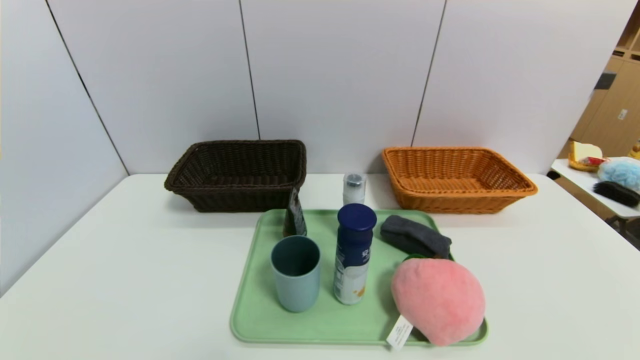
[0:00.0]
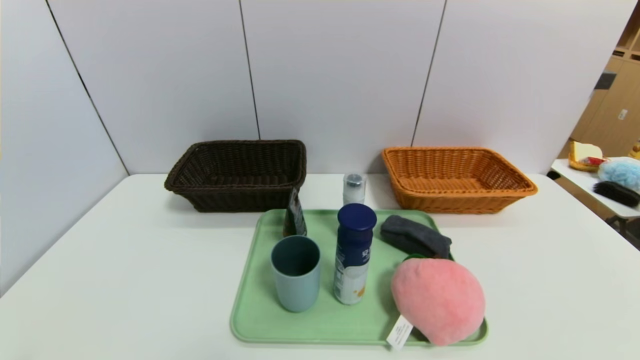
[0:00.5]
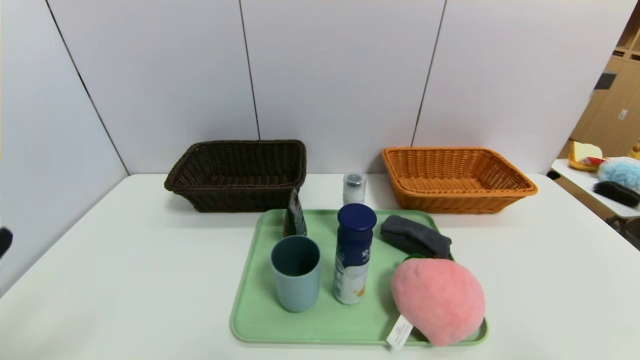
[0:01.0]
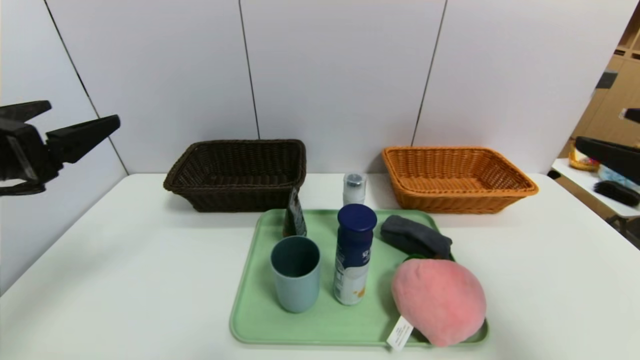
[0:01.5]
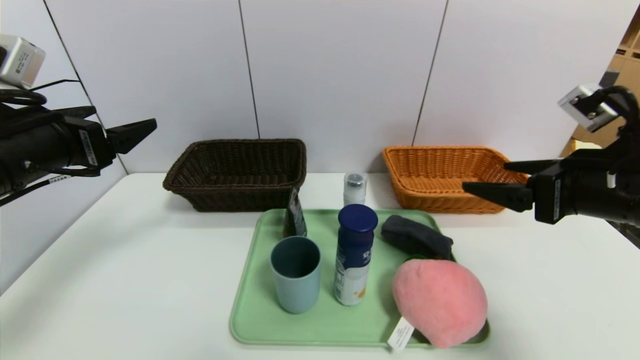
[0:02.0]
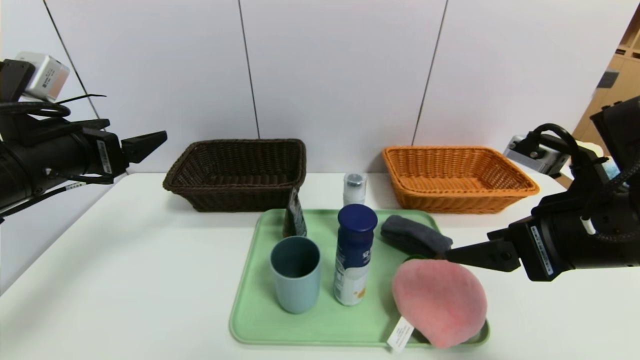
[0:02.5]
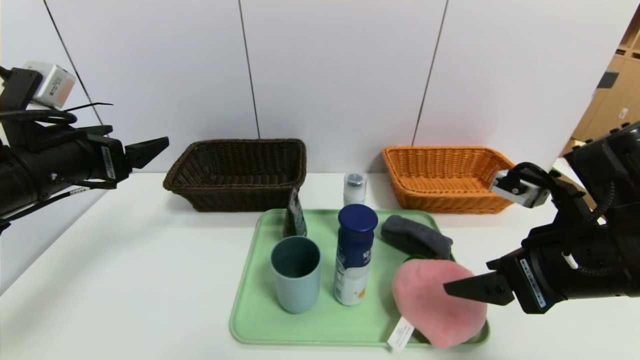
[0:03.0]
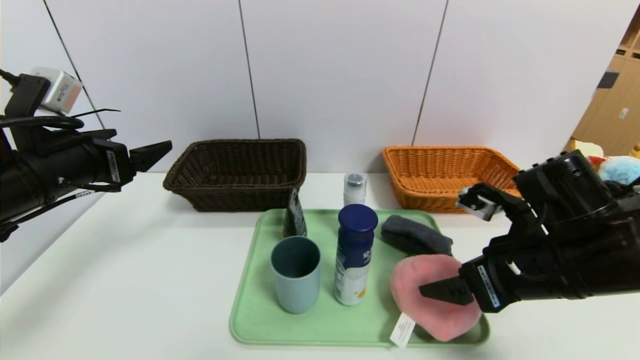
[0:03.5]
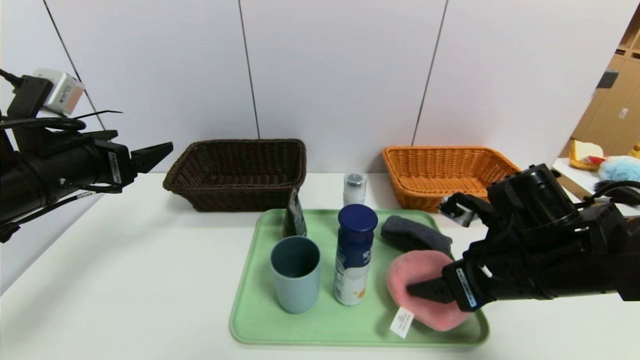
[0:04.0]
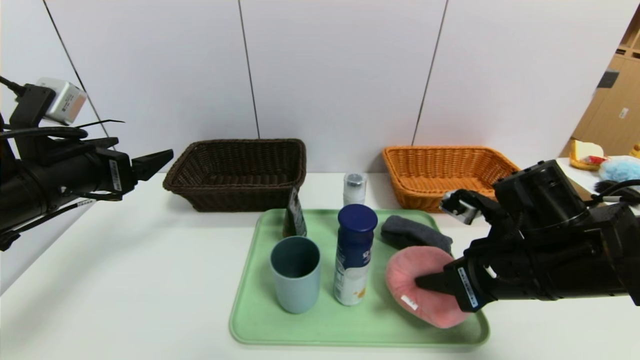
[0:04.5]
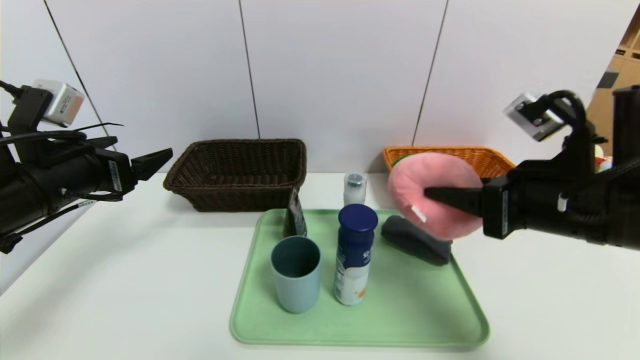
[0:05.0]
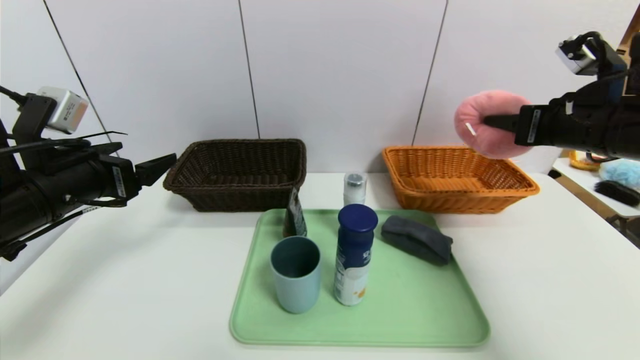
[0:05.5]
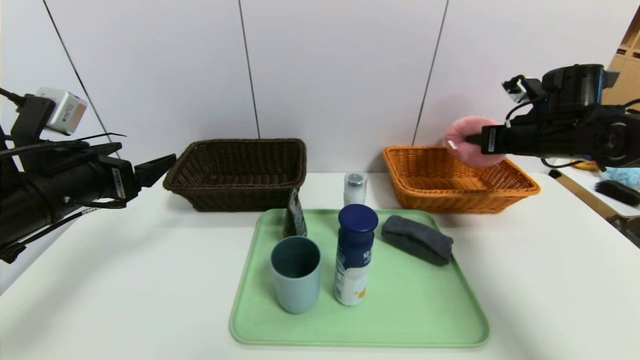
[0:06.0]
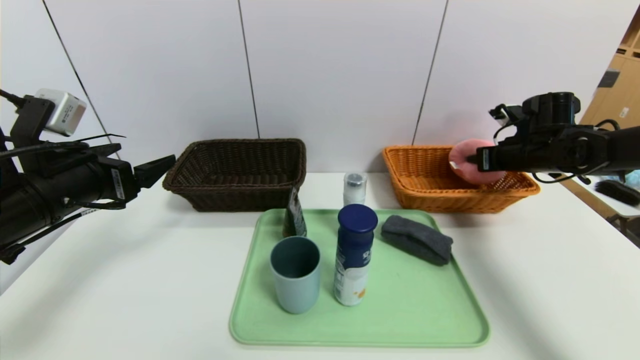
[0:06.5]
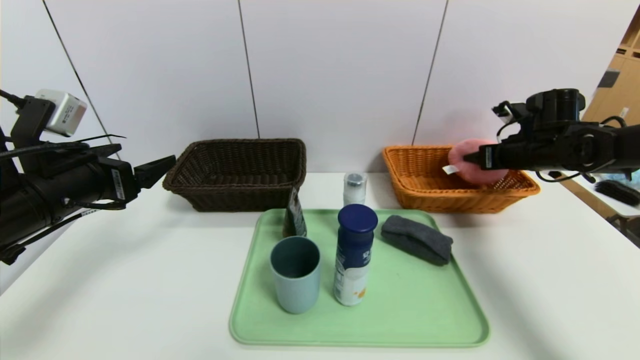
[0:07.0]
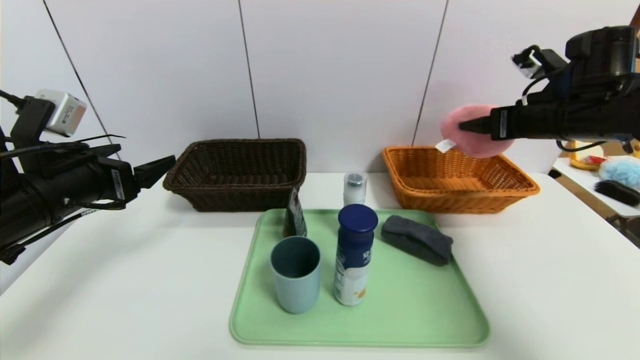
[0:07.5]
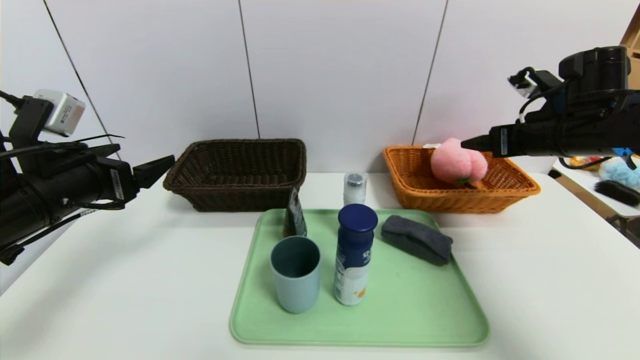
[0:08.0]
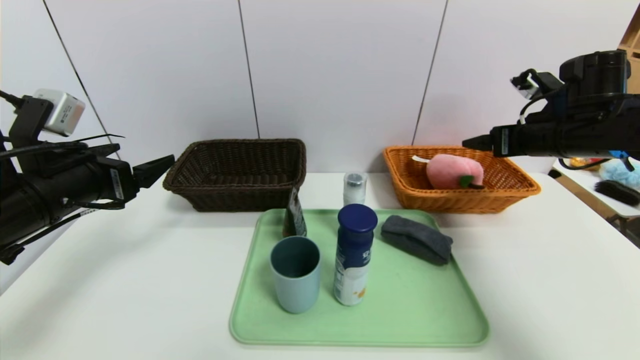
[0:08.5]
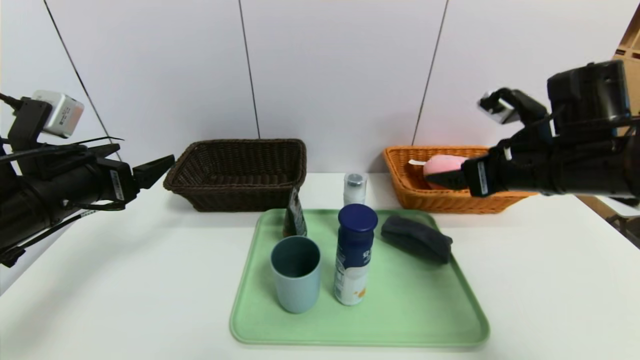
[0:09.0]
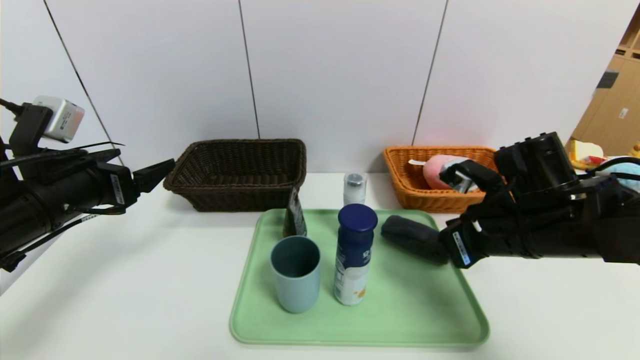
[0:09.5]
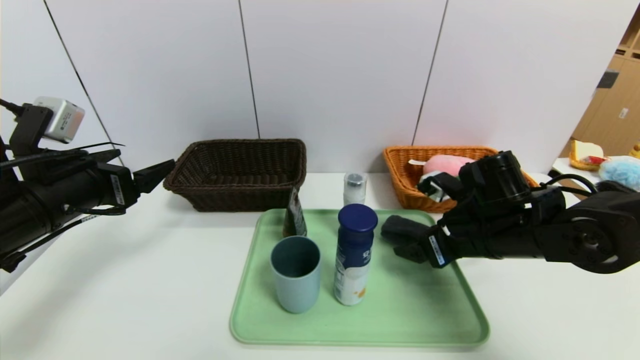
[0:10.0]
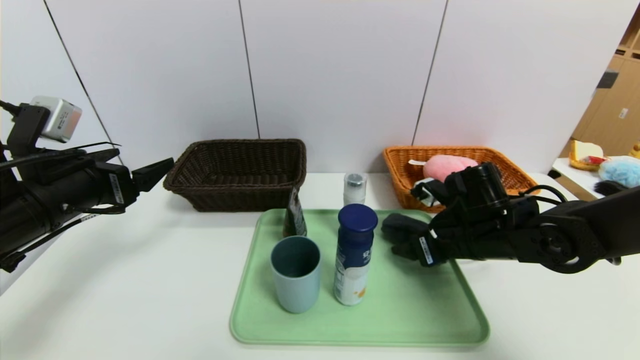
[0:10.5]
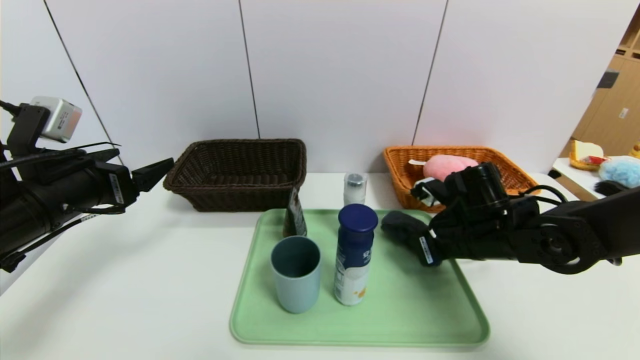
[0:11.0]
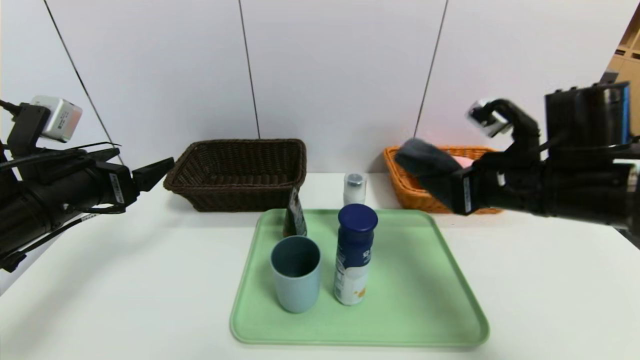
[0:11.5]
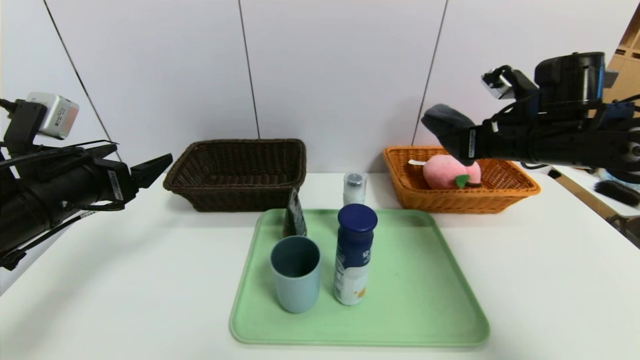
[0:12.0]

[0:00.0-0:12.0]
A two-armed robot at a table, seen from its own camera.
Task of the whole recording: place the food in the right basket with the right gripper, and place the non food items in the left basket with the left gripper.
Step, 0:00.0 to 0:08.5: Grasp the peach and put it in the right basket.
0:00.0 to 0:02.0: The grippers both shift forward and upward by roughly 30 cm.
0:02.0 to 0:04.0: The right gripper moves downward and to the left, some 10 cm.
0:04.0 to 0:06.0: The right gripper shifts some 20 cm forward and to the right, and closes its fingers.
0:06.0 to 0:08.0: The right gripper goes upward and returns, roughly 5 cm each way, and opens its fingers.
0:08.0 to 0:10.0: The right gripper goes roughly 15 cm to the left, downward and backward.
0:10.0 to 0:12.0: The right gripper moves upward, forward and to the right, some 15 cm, and closes.

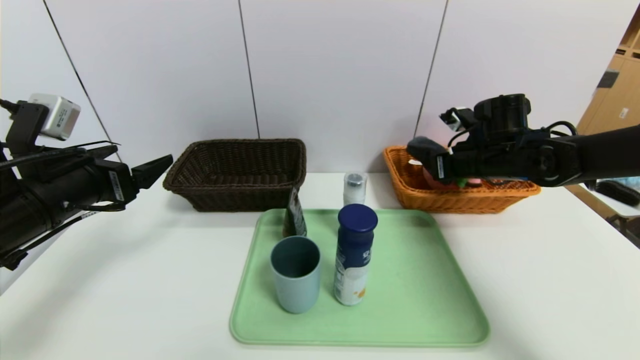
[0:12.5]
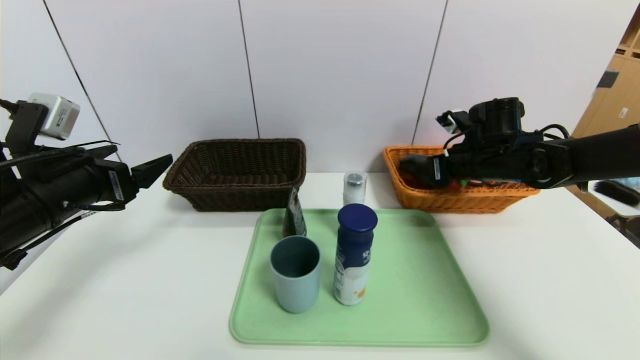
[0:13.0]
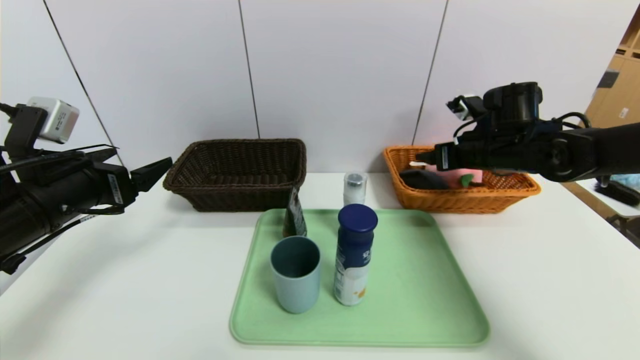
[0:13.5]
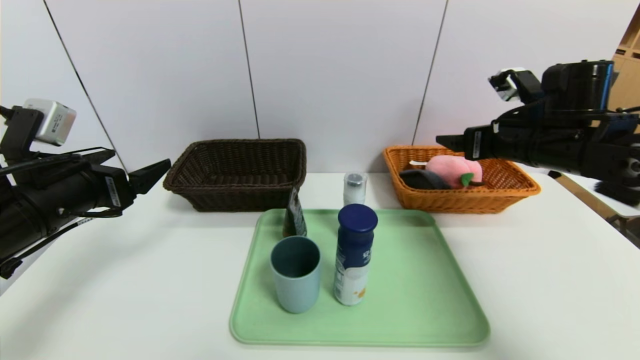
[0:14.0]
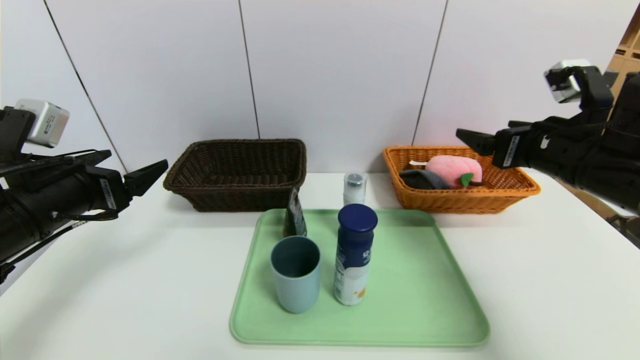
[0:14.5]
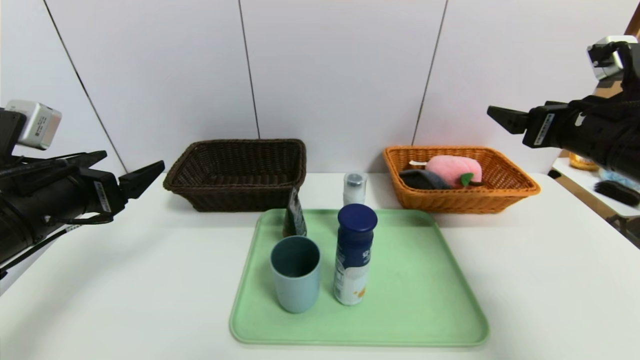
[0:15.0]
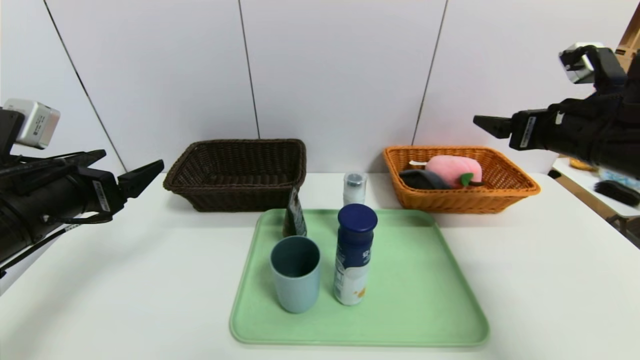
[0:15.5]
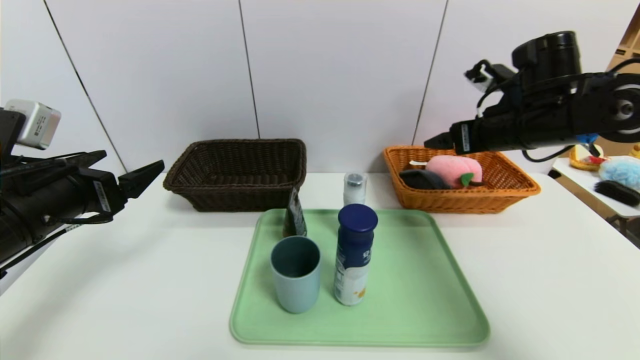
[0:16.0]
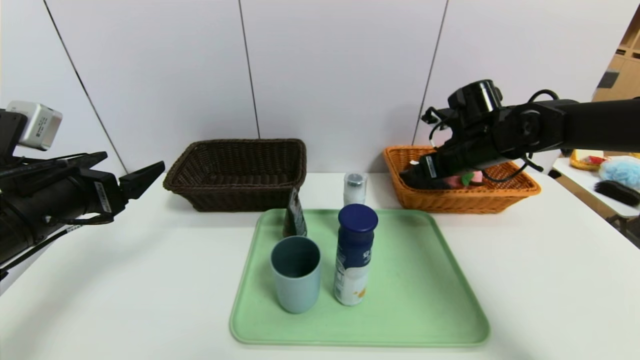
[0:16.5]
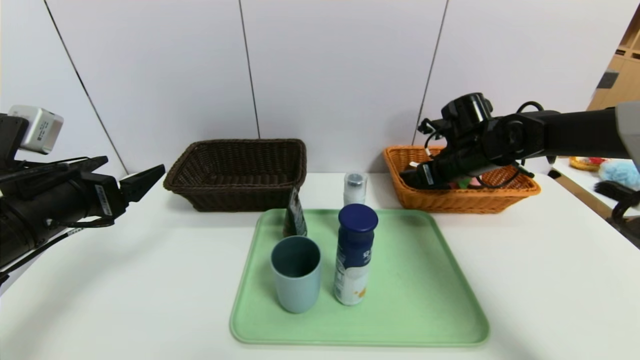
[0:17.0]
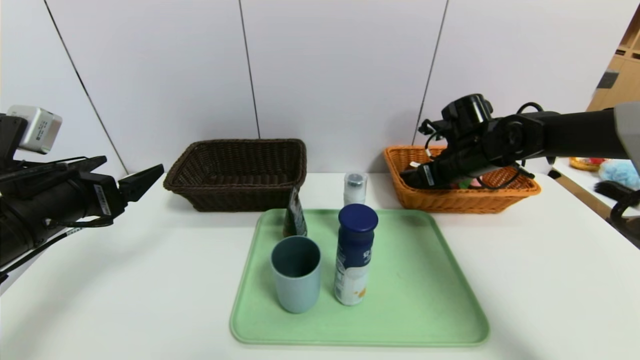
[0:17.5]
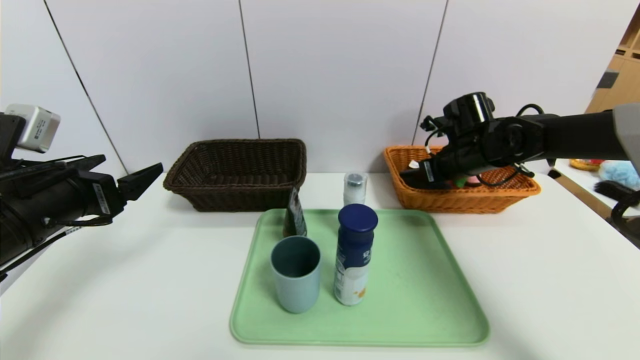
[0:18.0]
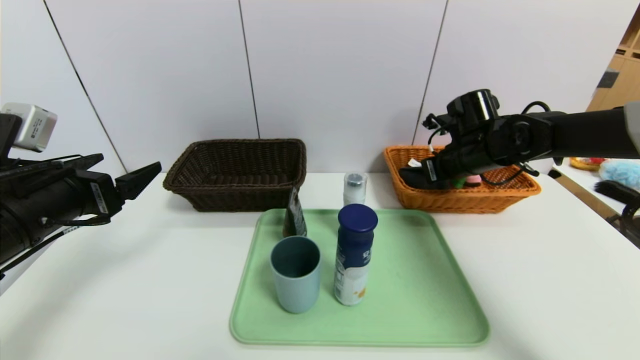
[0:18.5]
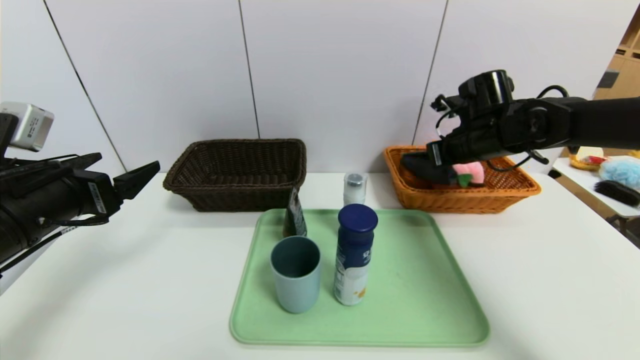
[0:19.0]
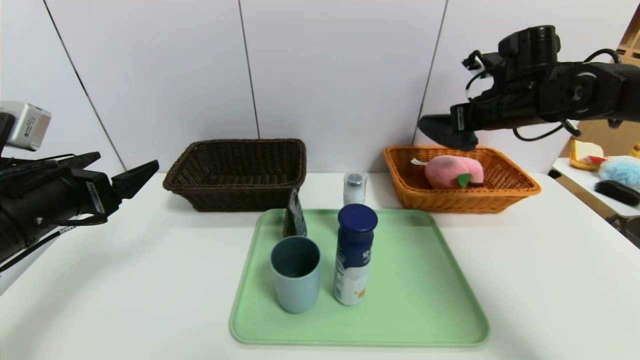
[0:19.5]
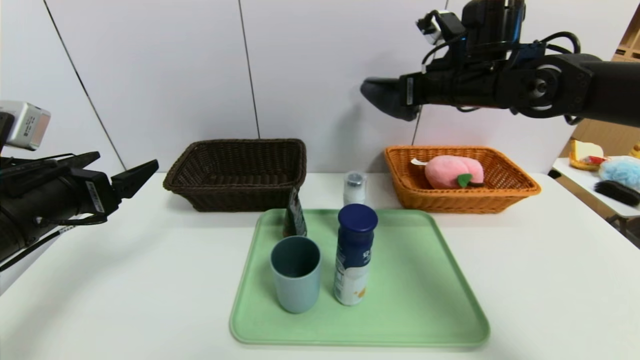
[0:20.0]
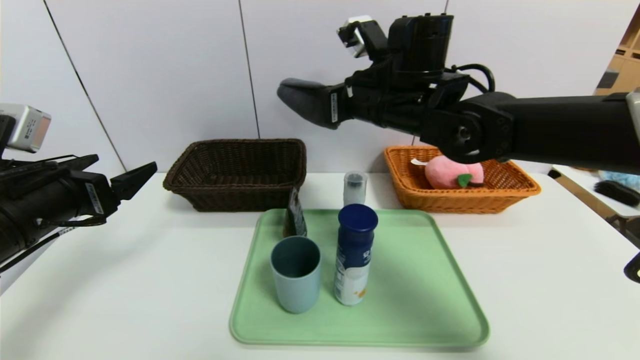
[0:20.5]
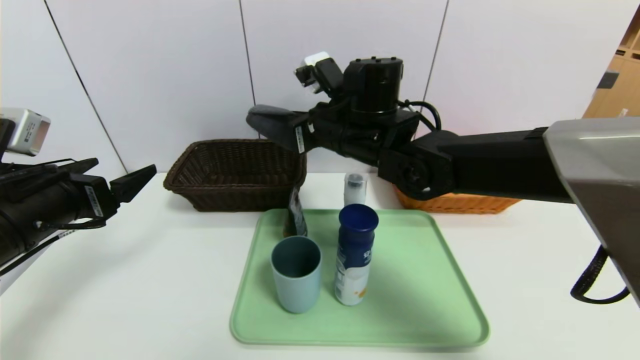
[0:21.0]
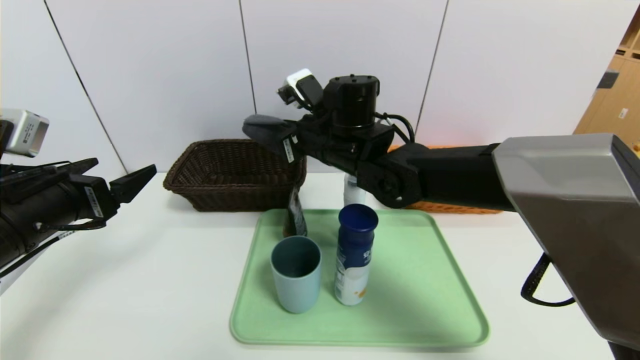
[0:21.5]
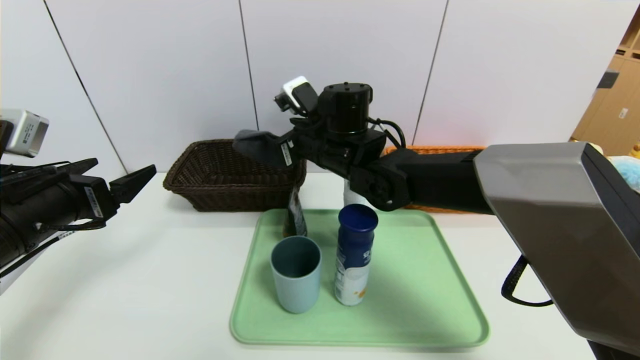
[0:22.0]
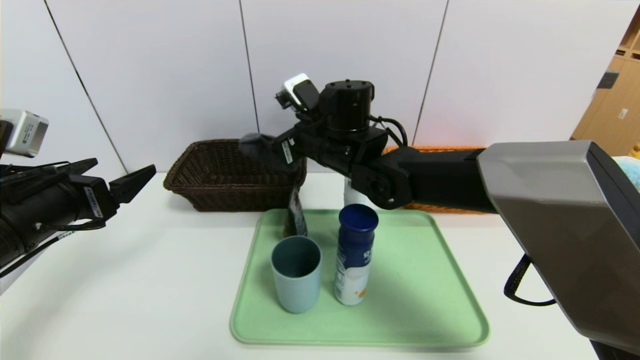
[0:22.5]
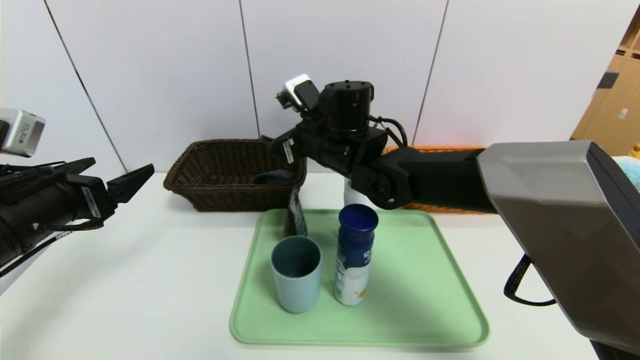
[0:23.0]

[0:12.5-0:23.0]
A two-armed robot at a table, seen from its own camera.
Task of the whole recording: place the food in the right basket with the right gripper, and place the non food items in the left basket with the left gripper.
0:12.5 to 0:14.5: The right gripper heads backward and upward, covering some 15 cm, and opens up.
0:14.5 to 0:16.5: The right gripper moves forward, approximately 15 cm.
0:16.5 to 0:19.0: The right gripper closes its fingers.
0:19.0 to 0:21.0: The right gripper heads to the left, covering approximately 20 cm.
0:21.0 to 0:23.0: The right gripper opens its fingers.
